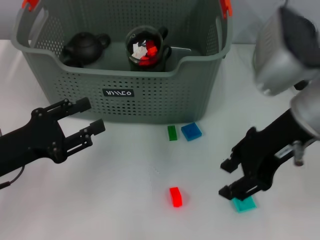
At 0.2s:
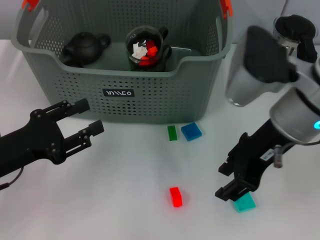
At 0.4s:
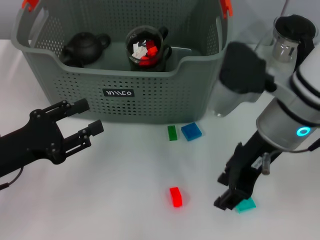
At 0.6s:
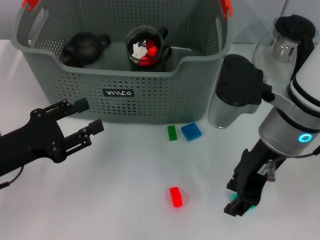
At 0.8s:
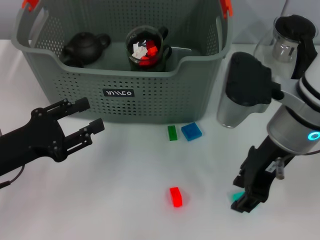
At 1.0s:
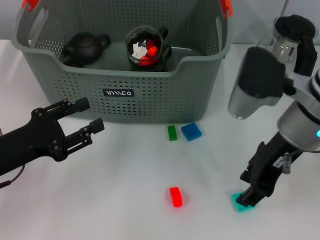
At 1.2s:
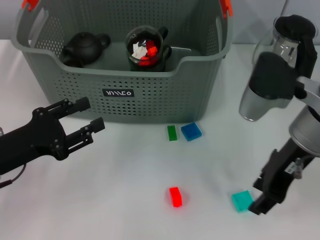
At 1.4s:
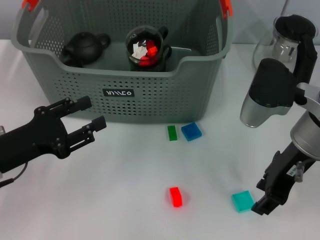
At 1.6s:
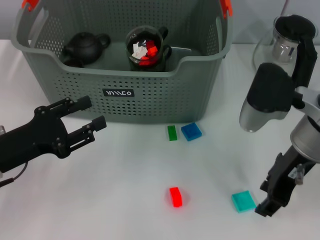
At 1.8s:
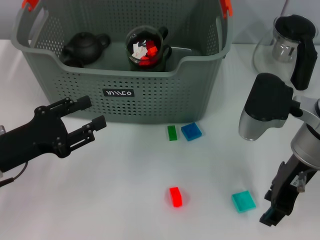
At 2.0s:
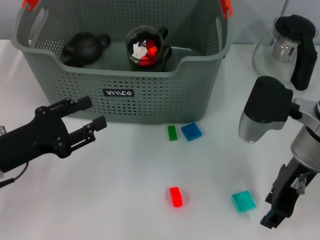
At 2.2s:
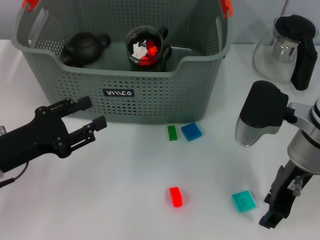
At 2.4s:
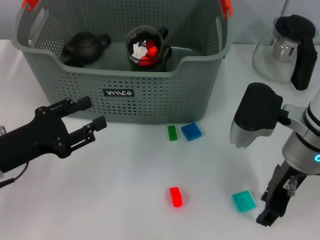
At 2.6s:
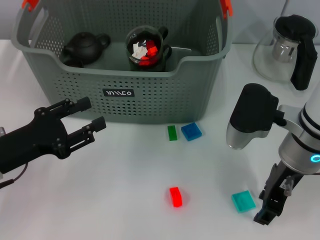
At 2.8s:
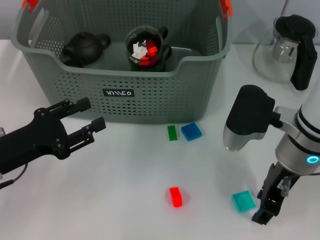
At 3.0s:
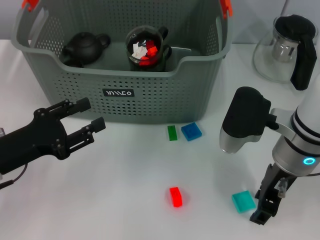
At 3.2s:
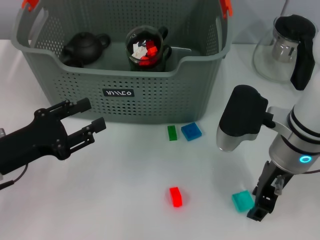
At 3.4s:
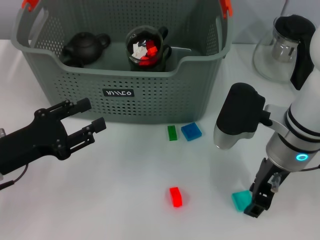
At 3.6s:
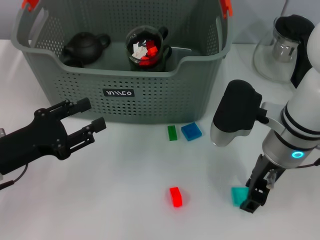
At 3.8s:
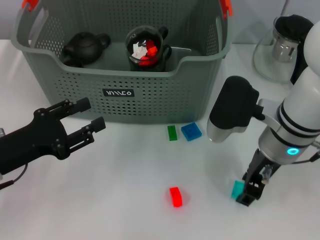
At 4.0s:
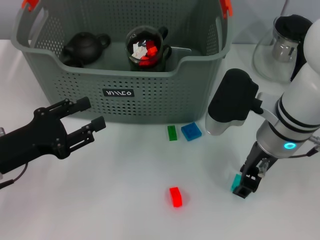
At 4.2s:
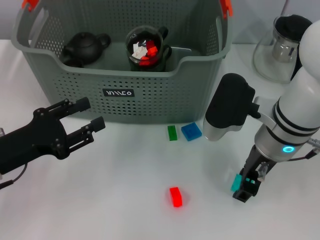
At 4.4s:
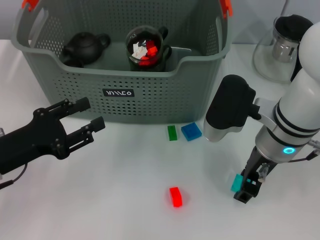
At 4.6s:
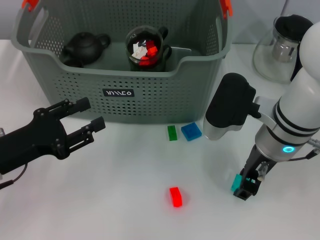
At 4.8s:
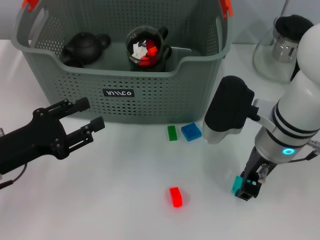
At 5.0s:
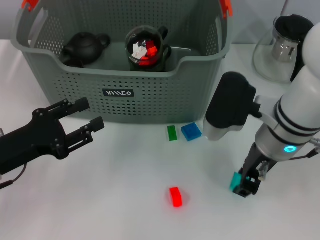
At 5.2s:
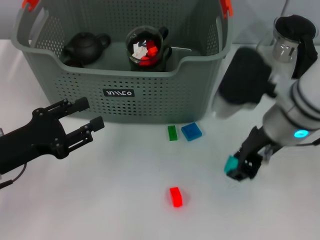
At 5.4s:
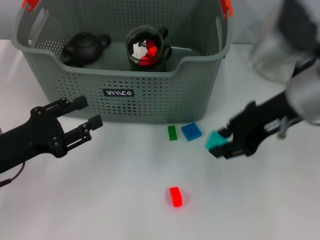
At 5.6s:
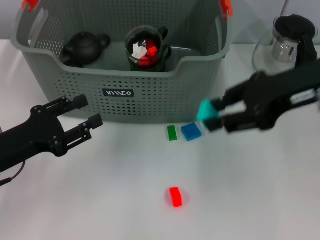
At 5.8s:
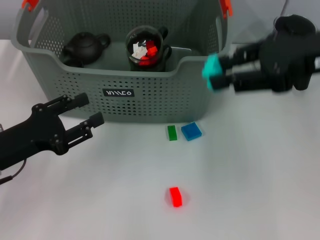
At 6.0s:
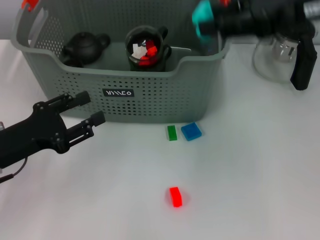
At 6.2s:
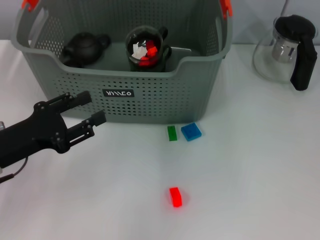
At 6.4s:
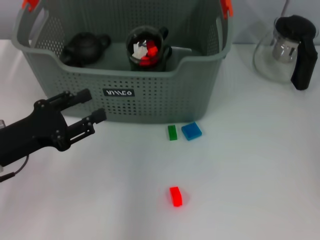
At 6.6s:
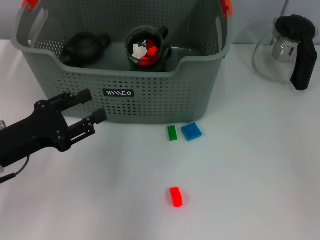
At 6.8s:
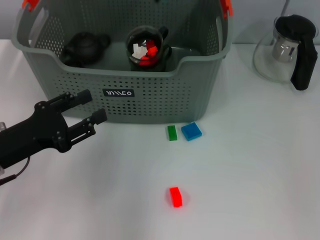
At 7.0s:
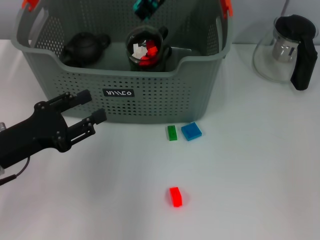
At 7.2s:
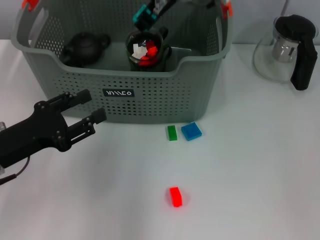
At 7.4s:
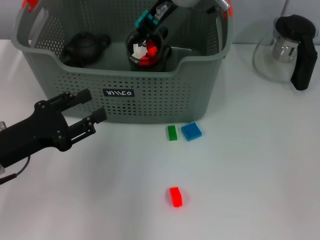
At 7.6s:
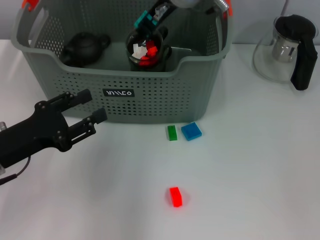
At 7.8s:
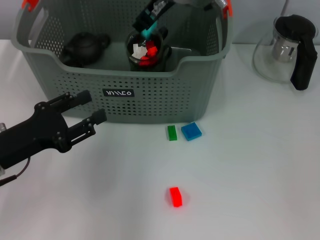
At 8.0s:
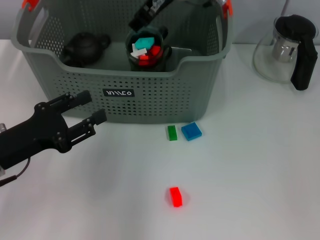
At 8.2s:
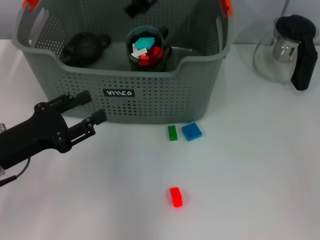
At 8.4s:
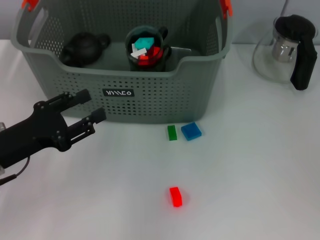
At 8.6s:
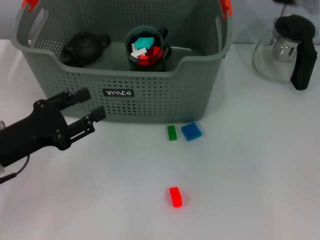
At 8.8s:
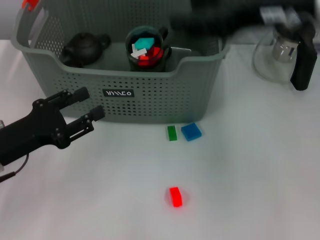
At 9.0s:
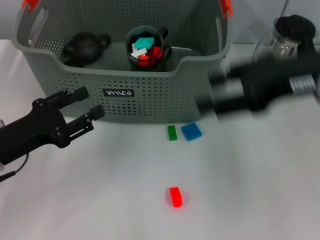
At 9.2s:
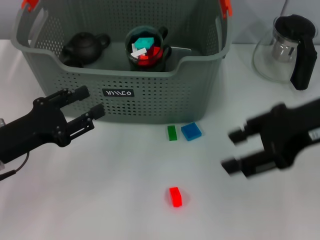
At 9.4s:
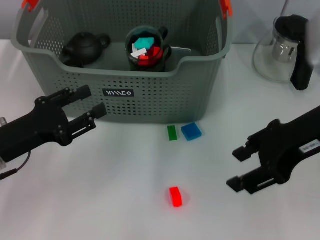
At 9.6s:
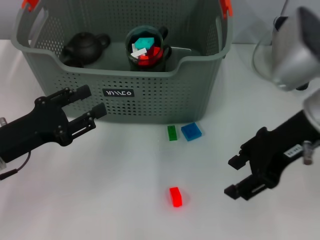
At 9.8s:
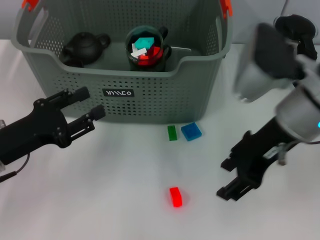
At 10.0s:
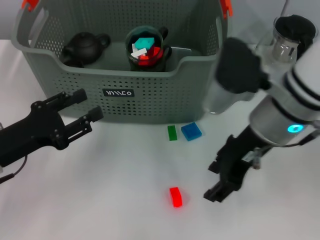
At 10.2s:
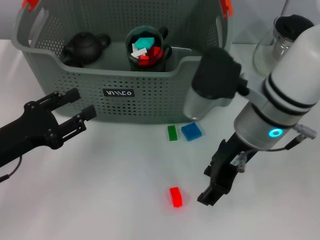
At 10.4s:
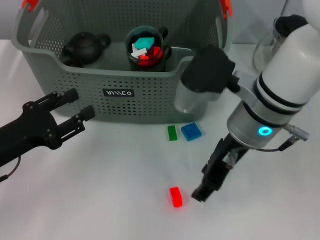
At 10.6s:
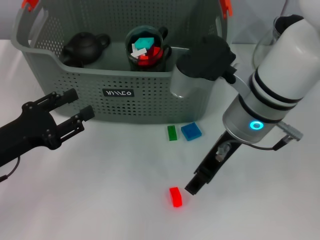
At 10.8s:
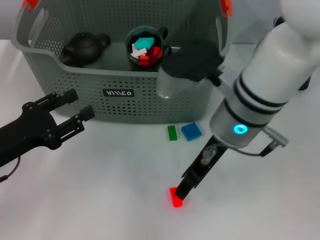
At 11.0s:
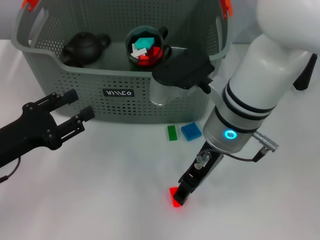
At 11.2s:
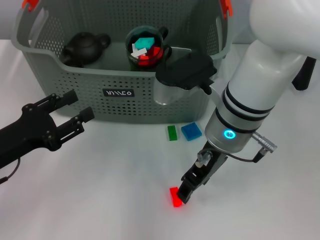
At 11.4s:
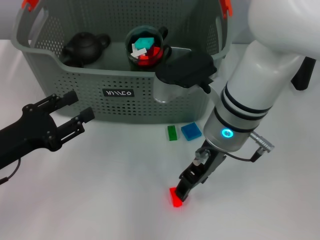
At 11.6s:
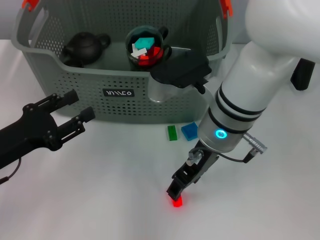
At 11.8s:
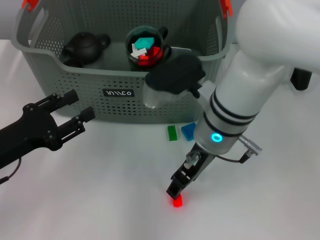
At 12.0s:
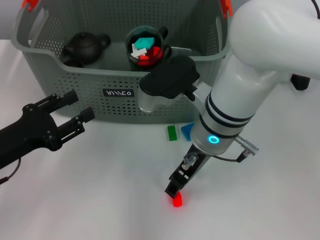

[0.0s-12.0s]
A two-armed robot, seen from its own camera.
Task of the whole recording: pick up the teacup on the table and place it into the storage bin, pick up the block on the table and place it into the storage bin.
Step, 0.0s to 4.8s: Grasp the light blue block with right gripper.
Step, 5.0s to 7.8s: Place the light blue block in the storage box with right gripper.
0.0s to 1.6s: The right gripper goes approximately 5 cm downward.
1.6s to 4.4s: The grippers move only a little.
4.4s to 6.0s: The right gripper heads upward, covering about 20 cm.
6.0s to 7.6s: The right gripper goes approximately 20 cm to the left and forward.
7.6s to 9.0s: The right gripper moves to the right and backward, approximately 25 cm.
9.0s to 10.4s: The right gripper travels to the left and downward by some 15 cm.
10.4s to 12.0s: The right gripper moves some 5 cm.

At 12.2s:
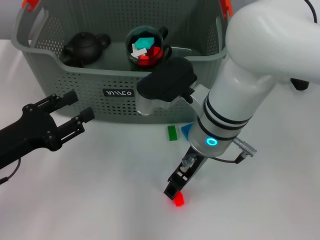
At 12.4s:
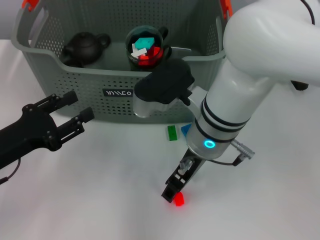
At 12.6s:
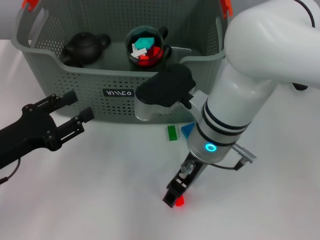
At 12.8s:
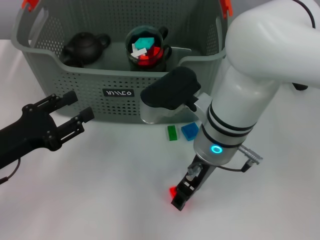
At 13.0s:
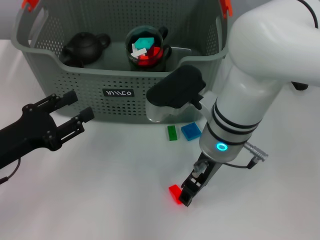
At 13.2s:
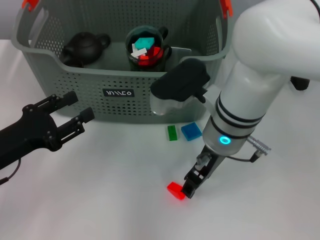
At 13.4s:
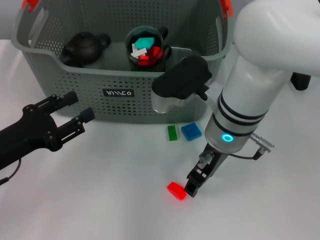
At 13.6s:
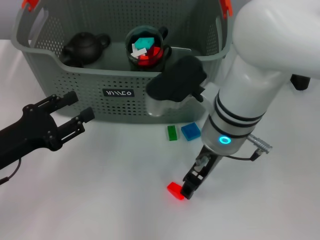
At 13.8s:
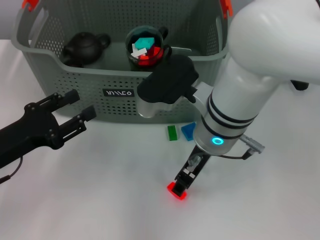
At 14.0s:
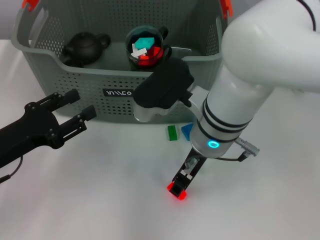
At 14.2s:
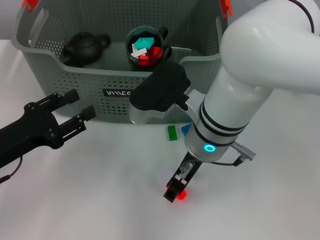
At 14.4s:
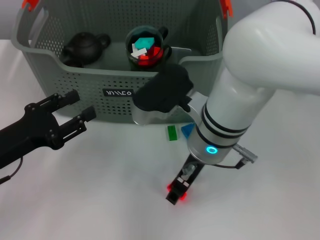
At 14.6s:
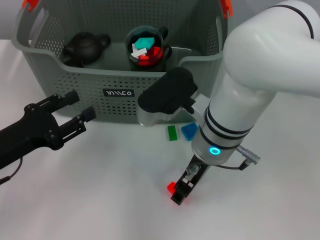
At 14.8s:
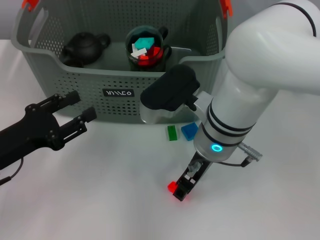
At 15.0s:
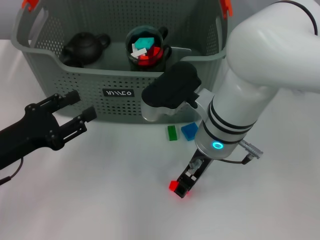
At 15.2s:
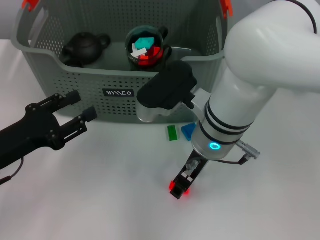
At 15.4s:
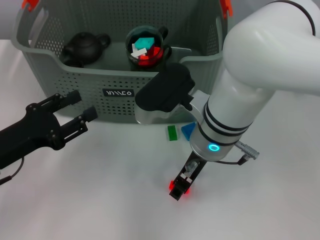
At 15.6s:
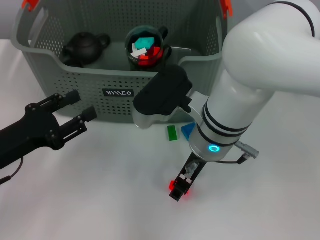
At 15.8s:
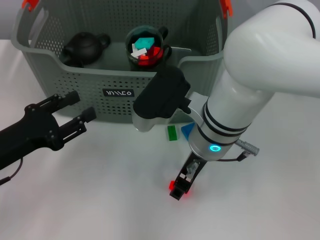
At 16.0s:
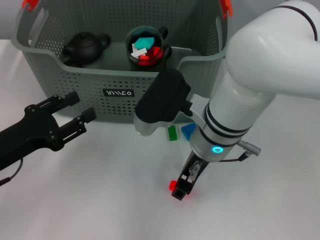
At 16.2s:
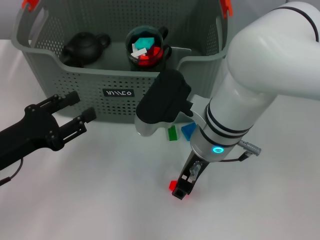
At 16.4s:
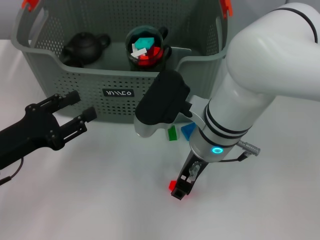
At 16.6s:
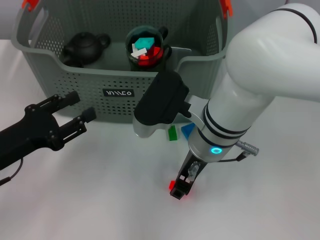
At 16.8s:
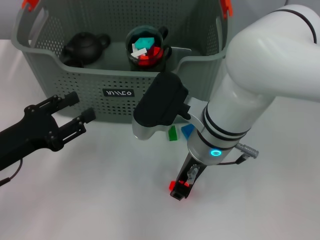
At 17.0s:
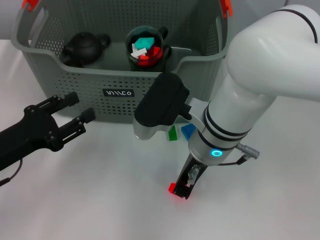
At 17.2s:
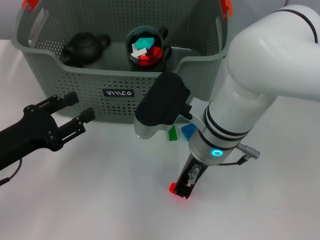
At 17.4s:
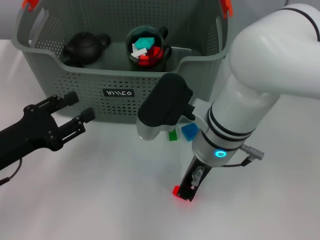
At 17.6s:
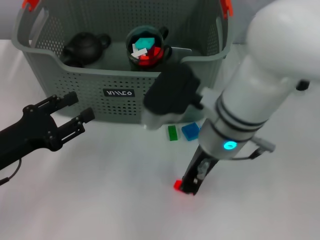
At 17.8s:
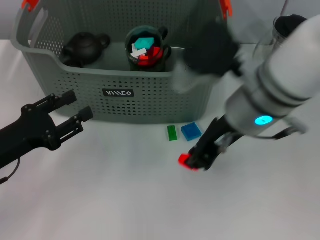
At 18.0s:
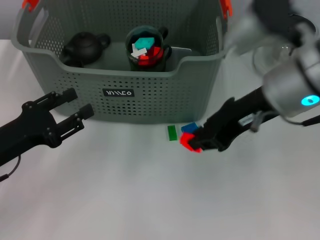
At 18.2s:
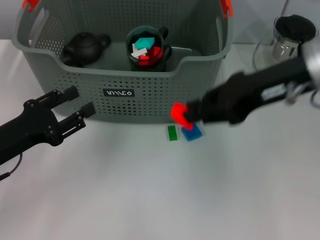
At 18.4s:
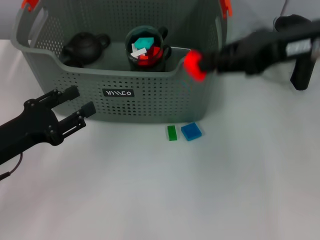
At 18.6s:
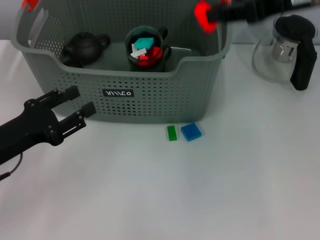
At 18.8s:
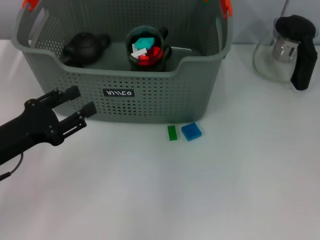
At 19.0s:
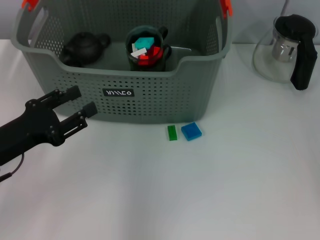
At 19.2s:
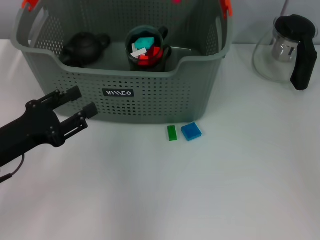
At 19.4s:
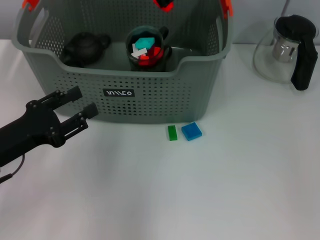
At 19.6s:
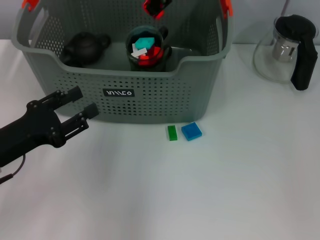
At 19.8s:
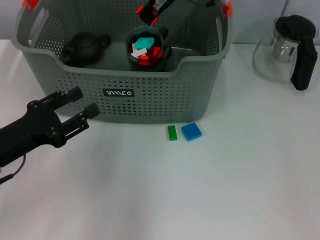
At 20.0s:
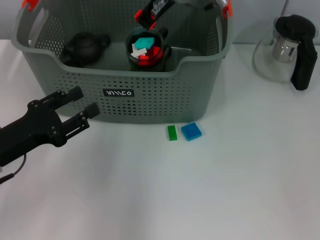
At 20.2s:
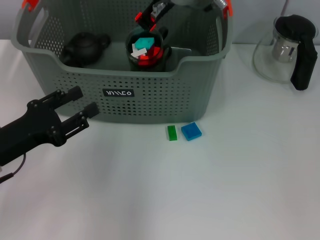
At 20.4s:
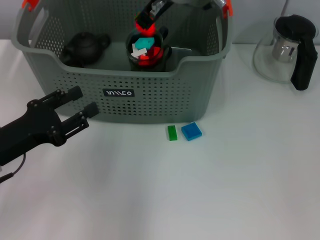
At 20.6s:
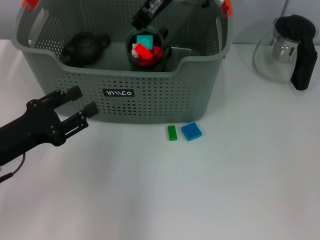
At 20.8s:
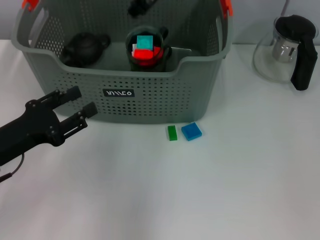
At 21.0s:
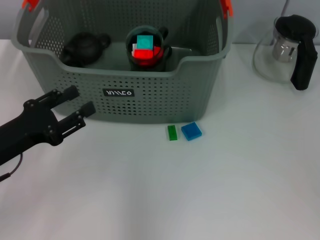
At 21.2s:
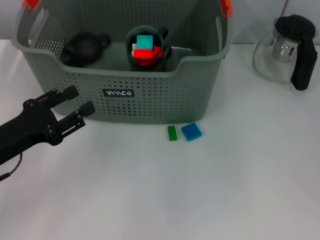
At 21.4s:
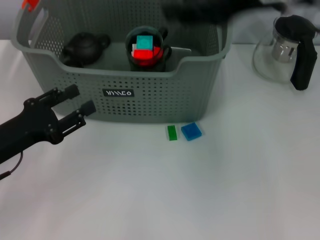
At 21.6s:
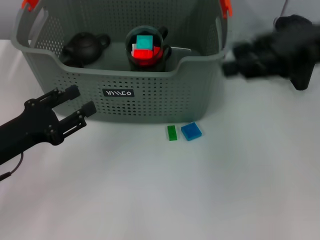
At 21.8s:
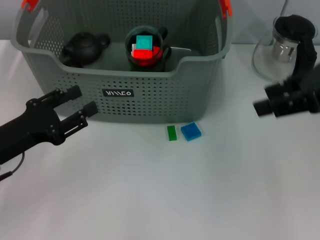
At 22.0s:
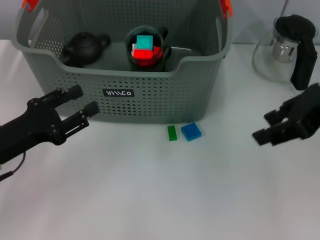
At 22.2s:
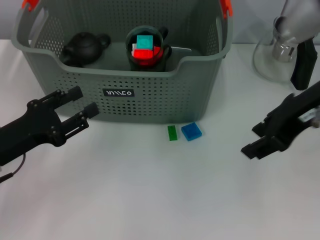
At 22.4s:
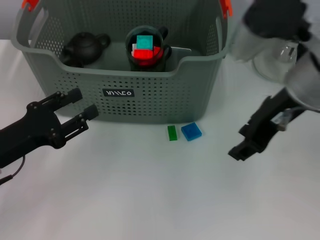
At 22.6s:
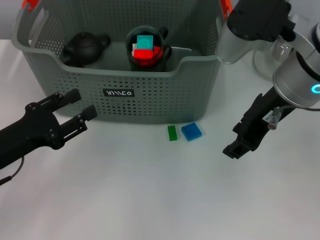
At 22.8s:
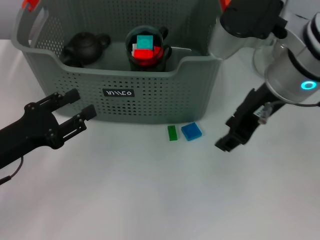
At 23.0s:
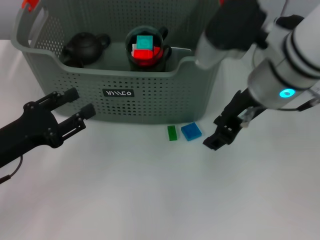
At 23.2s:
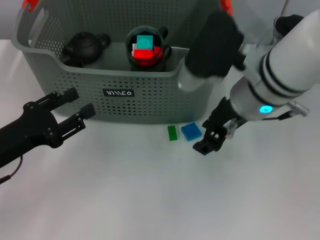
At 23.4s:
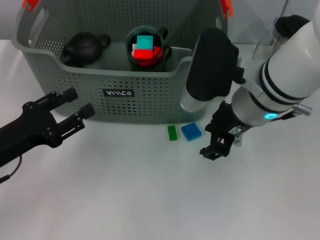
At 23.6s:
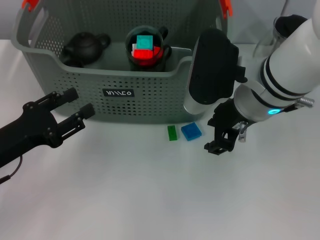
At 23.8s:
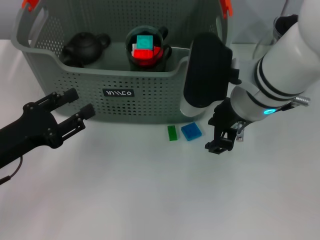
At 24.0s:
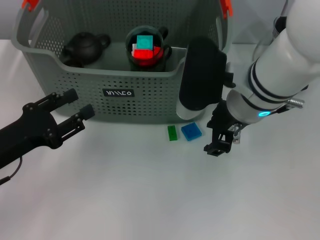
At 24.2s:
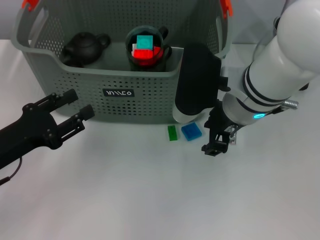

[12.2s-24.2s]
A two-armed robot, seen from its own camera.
Task of the whole recording: pick up the teacup on the table and place it into the storage bin, pick up the block on the table and place it into the storage bin.
Step, 12.2s to 17.2s: Grasp the orange block with right gripper.
Step, 17.4s to 20.4s: Place the orange block in the storage box with right gripper.
12.2s to 16.6s: There are only small adjustments of the grippers.
16.6s to 18.2s: The right gripper moves to the right and upward, approximately 20 cm, and closes.
18.2s to 19.8s: The right gripper is displaced to the left and forward by approximately 20 cm.
19.8s to 21.2s: The right gripper is displaced to the right, backward and upward by about 15 cm, and opens its fingers.
21.2s to 22.6s: The right gripper shifts roughly 10 cm downward, and travels to the right and back again, roughly 15 cm each way.
22.6s to 24.2s: The right gripper heads downward, covering approximately 5 cm.
